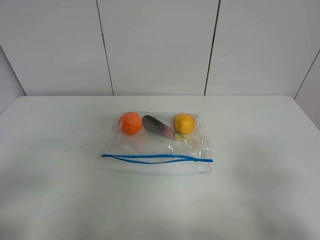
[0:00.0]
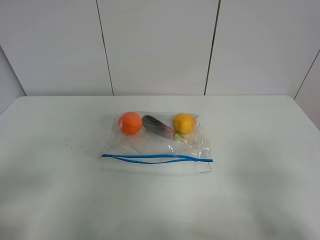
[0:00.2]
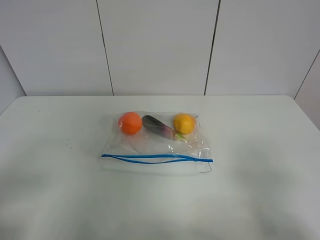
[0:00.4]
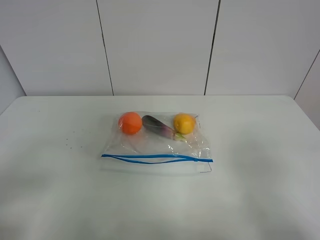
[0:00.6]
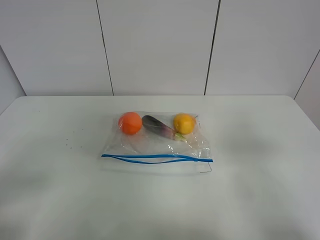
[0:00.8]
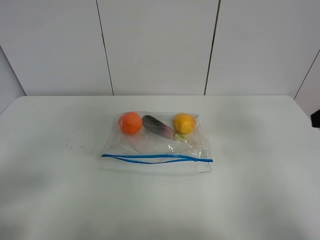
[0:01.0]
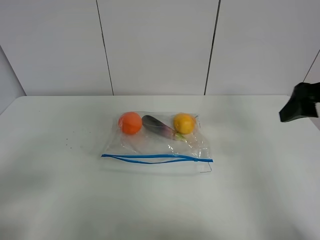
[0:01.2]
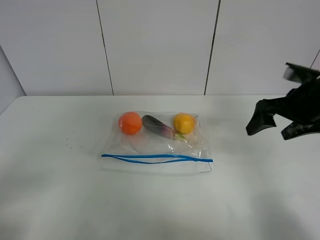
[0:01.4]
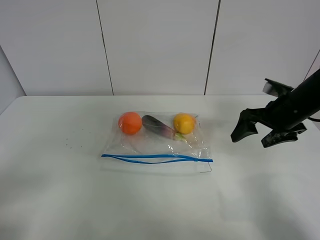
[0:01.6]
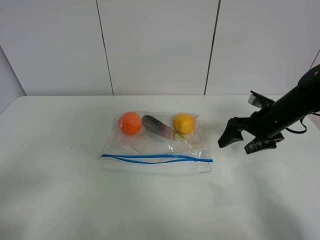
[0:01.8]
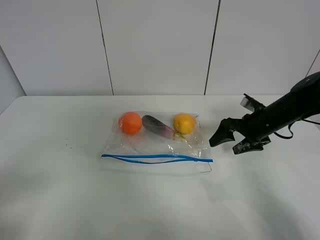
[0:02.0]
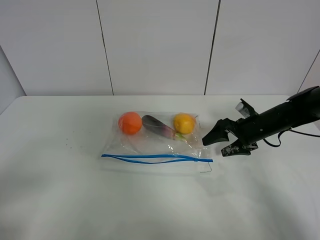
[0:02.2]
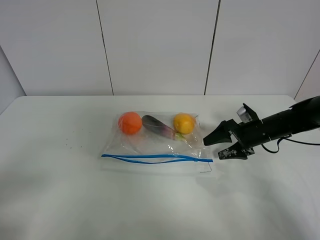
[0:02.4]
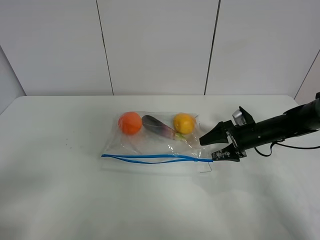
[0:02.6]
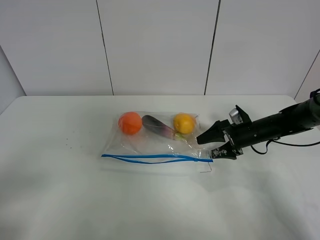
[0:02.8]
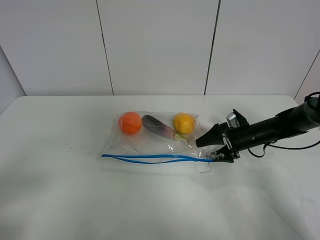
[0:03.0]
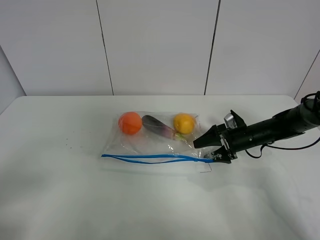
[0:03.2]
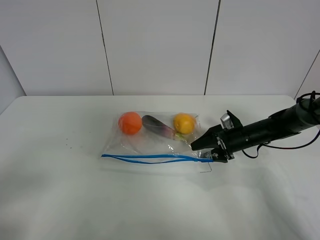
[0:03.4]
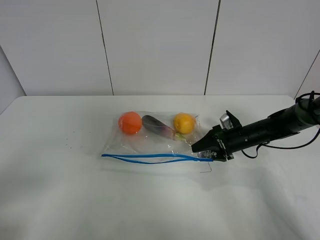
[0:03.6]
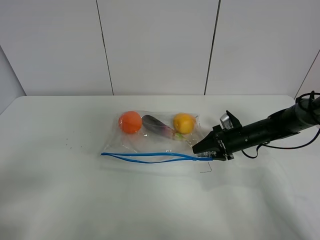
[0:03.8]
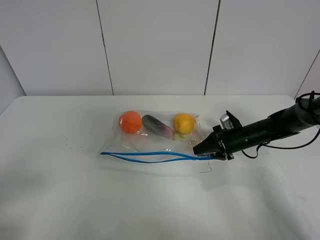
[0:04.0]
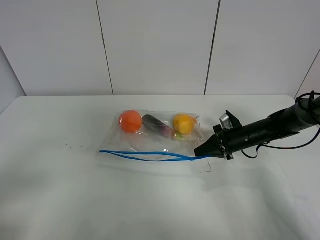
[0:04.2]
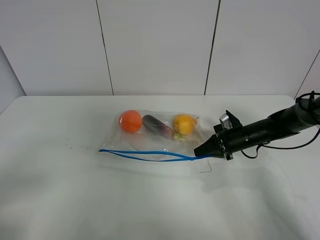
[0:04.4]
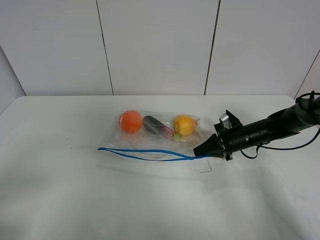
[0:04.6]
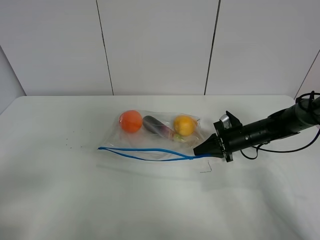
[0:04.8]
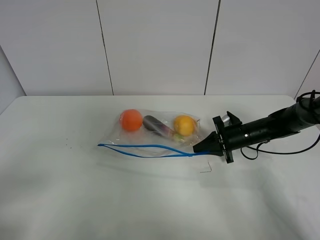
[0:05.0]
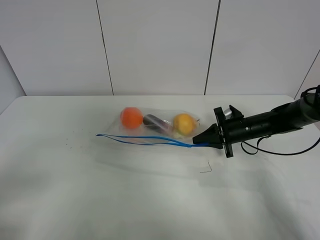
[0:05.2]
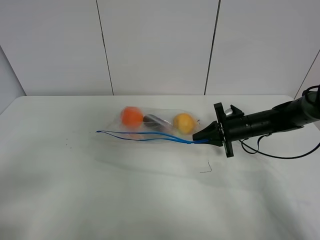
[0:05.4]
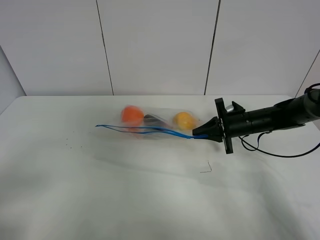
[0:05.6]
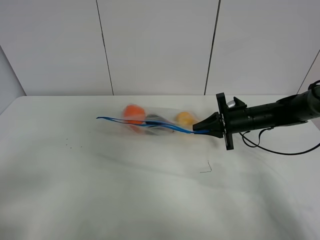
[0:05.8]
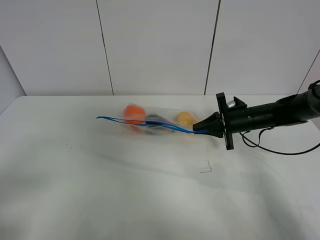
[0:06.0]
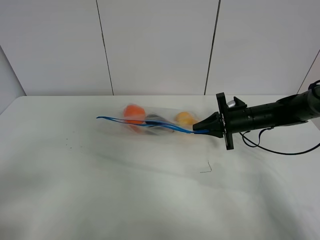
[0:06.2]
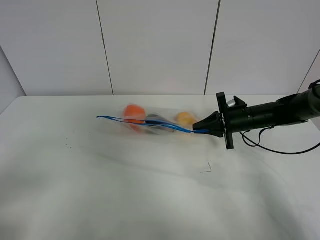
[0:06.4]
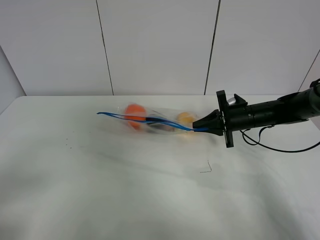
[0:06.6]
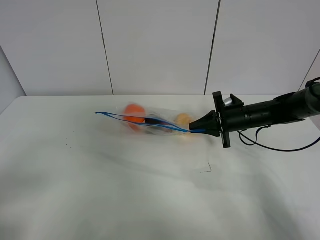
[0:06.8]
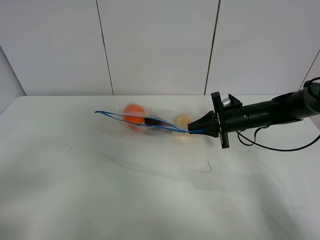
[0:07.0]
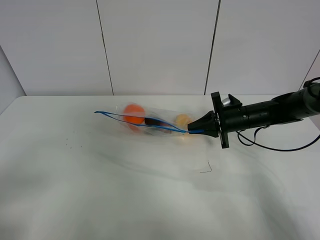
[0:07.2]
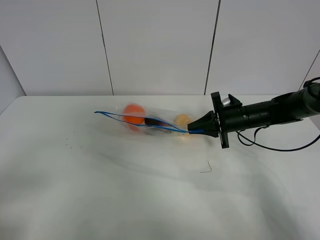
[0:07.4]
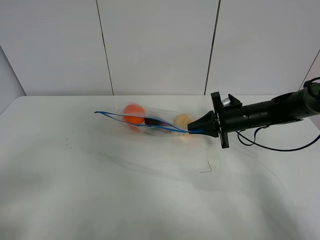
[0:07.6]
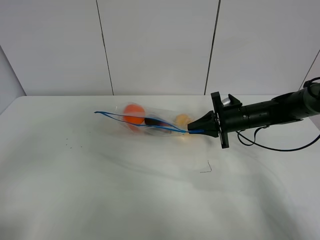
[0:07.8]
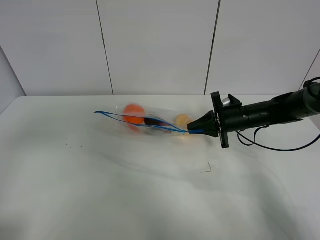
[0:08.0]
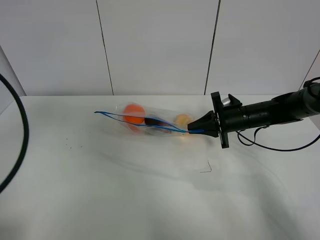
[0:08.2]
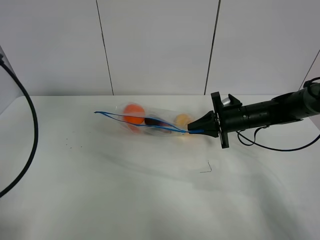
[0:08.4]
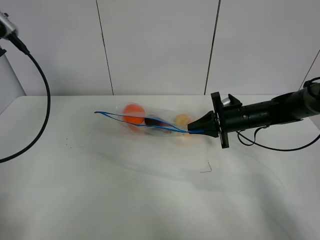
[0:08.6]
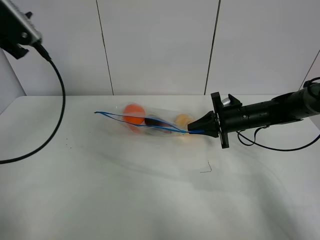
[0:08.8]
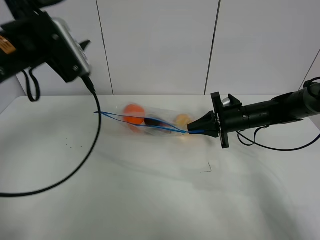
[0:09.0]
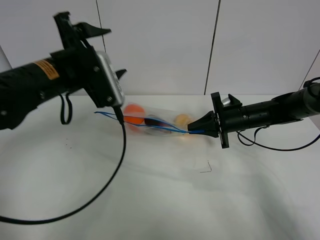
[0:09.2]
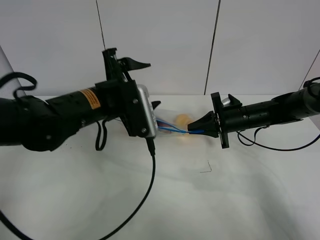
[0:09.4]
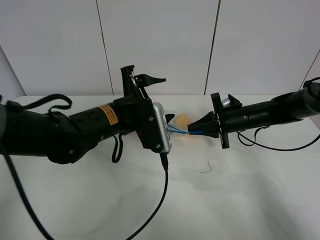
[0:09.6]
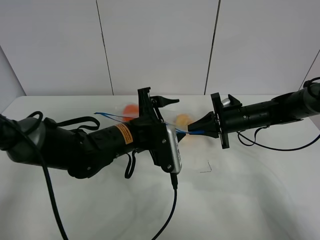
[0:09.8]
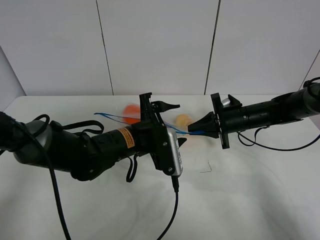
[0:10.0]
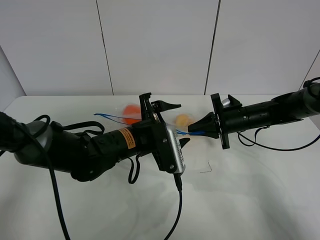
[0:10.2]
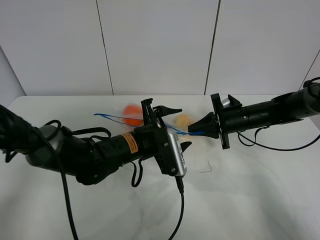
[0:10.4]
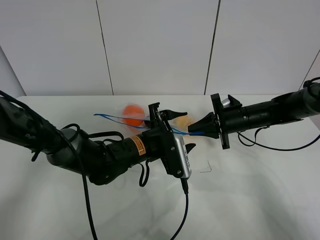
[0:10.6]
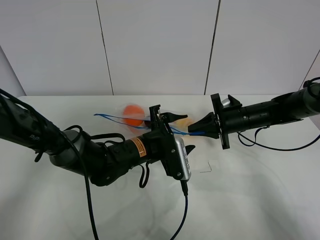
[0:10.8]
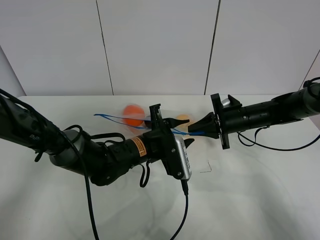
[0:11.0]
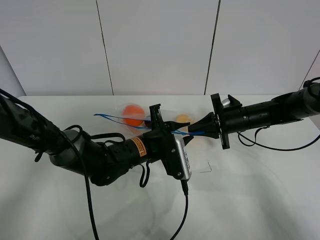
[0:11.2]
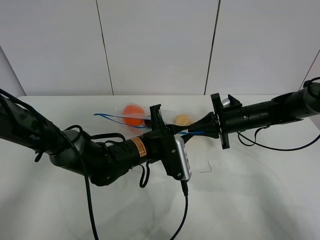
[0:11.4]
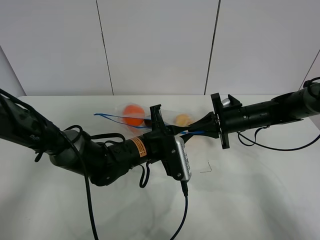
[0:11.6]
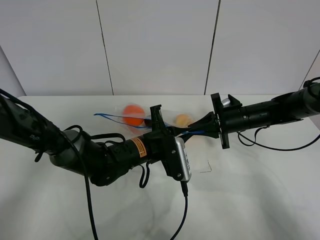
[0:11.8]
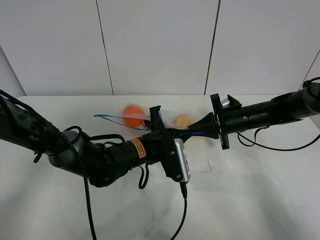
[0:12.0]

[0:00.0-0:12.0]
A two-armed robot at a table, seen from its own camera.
Step, 0:00.0 to 0:04.0: Grasp the fruit bag with right gripper.
Step, 0:04.2 to 0:06.0: Lift the fruit bag with your right gripper.
0:00.0 to 0:01.6: The right gripper goes approximately 30 cm forward.
0:01.6 to 0:03.0: The right gripper shifts approximately 15 cm downward.
0:03.0 to 0:04.4: The right gripper closes.
0:04.4 to 0:06.0: The right gripper shifts roughly 5 cm upward.
0:06.0 to 0:07.6: There are only small adjustments of the grippers.
0:07.6 to 0:09.0: The left gripper shifts some 25 cm forward.
0:09.0 to 0:10.4: The left gripper moves downward and to the right, some 25 cm.
0:10.4 to 0:12.0: The left gripper closes its fingers.

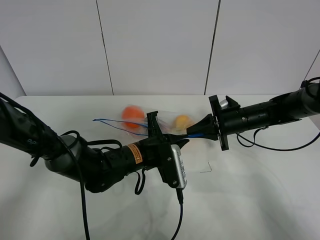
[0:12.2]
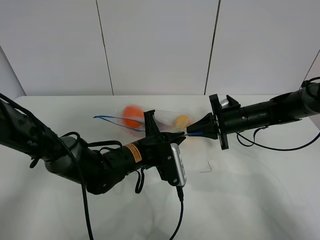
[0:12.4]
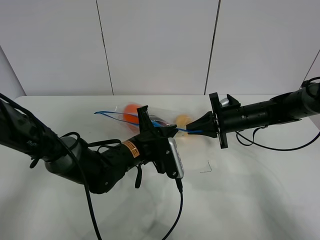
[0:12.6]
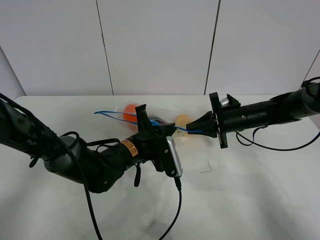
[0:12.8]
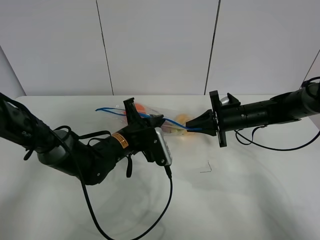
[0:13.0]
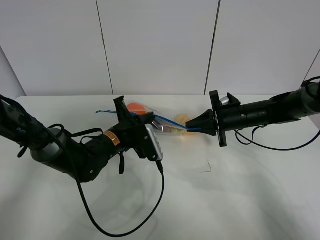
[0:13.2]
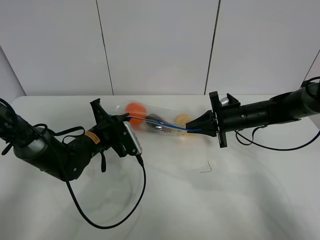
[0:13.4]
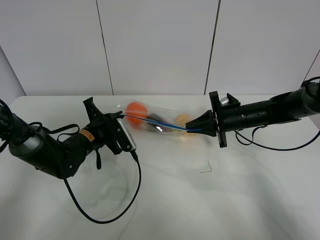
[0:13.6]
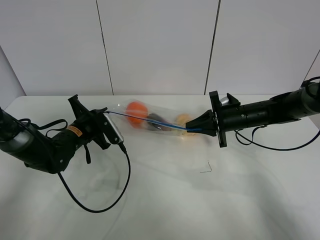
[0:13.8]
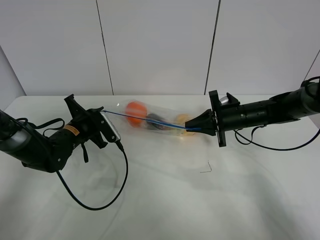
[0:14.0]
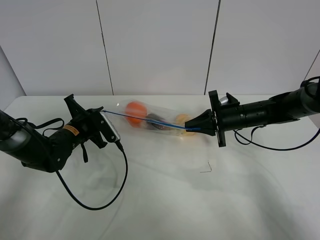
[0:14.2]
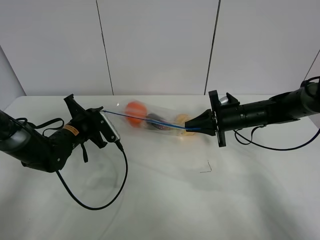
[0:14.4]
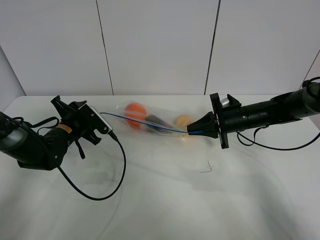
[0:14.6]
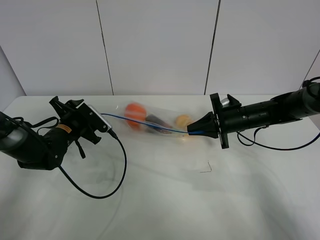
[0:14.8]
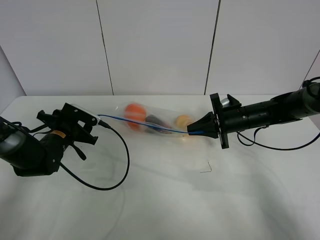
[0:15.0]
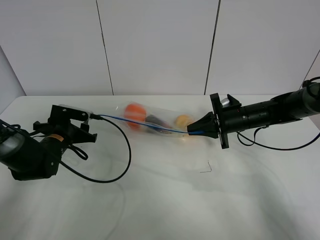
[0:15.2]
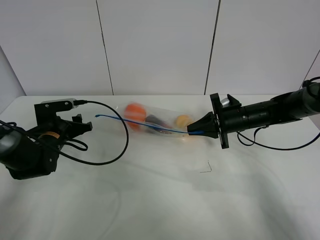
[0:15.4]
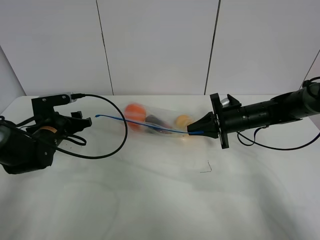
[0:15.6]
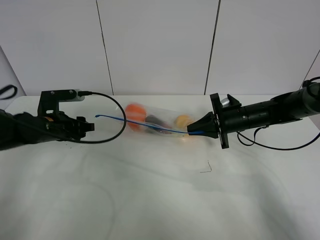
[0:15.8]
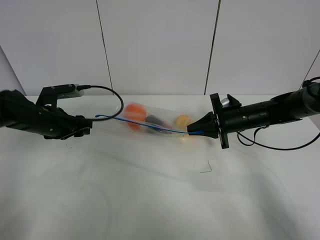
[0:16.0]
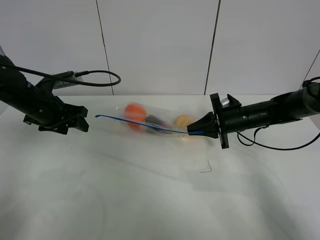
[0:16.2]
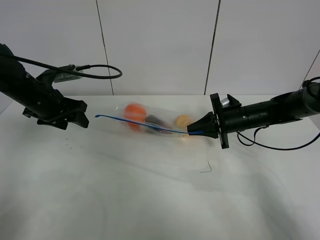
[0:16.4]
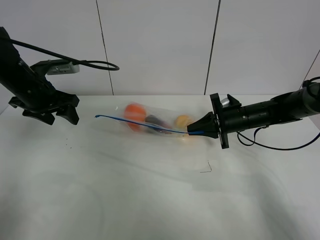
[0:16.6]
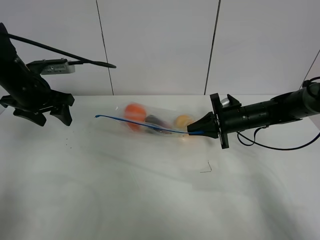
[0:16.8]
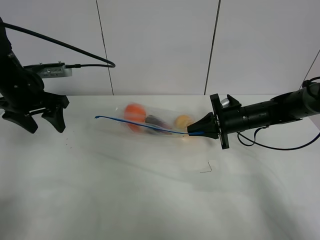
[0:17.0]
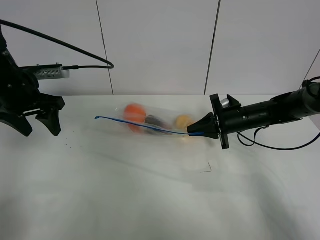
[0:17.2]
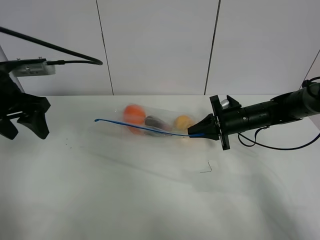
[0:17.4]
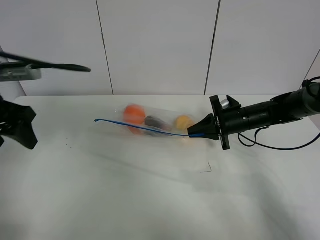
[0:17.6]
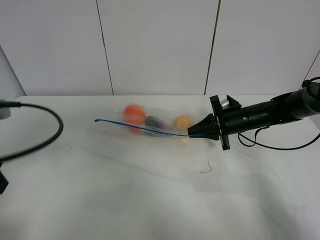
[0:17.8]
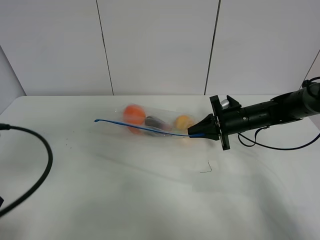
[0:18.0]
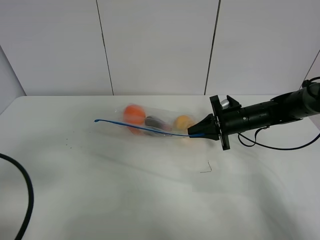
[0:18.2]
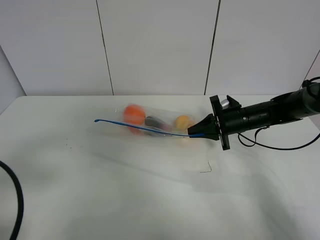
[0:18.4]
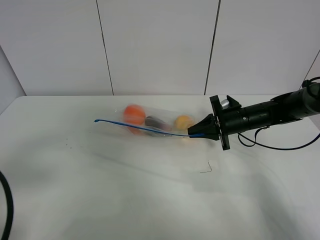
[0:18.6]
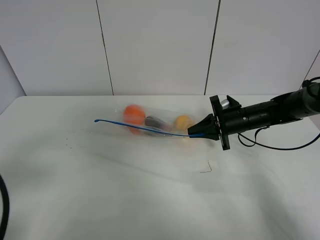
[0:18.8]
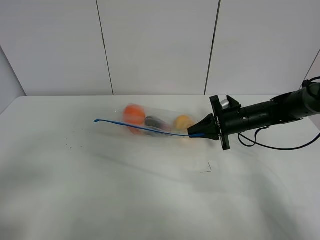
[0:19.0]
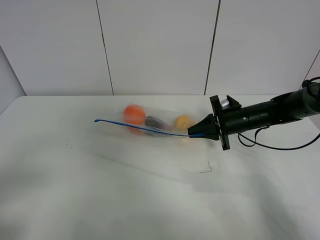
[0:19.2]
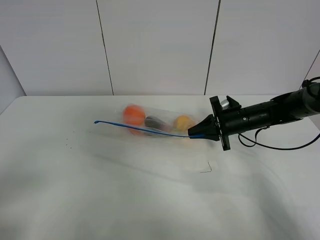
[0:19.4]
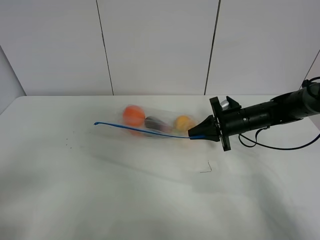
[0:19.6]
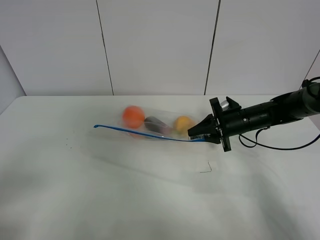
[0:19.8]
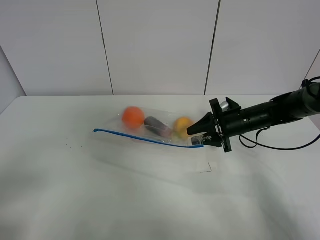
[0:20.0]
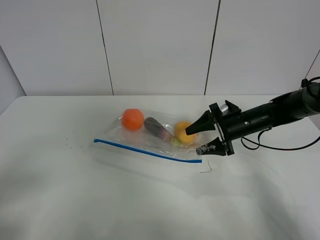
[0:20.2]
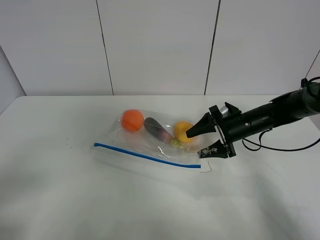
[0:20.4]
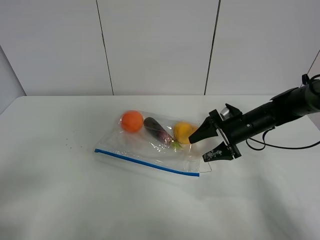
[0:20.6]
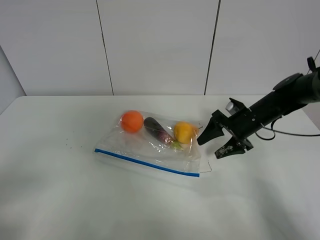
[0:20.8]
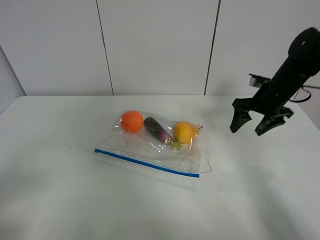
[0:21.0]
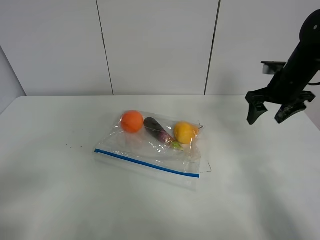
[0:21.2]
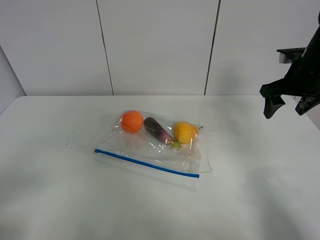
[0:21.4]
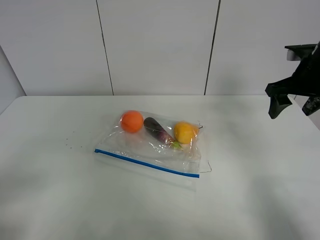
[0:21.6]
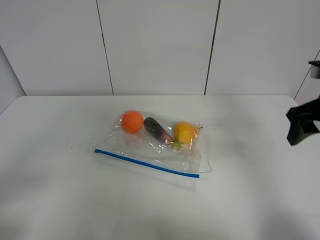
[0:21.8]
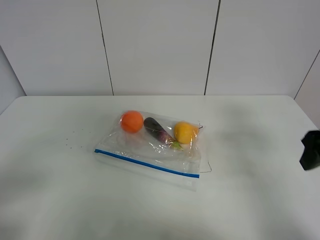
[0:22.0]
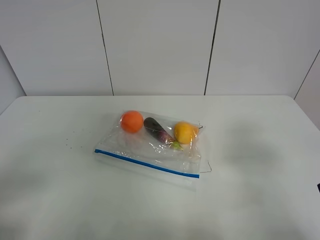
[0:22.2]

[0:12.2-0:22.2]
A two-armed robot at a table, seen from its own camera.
Step, 0:12.2 to 0:14.8: Pull the fruit bag with left gripper.
0:12.2 to 0:13.6: The left gripper shifts about 15 cm to the left and forward.
0:13.6 to 0:15.0: The left gripper travels to the left by about 5 cm, and opens up.
0:15.0 to 0:16.4: The left gripper shifts about 15 cm upward.
0:16.4 to 0:18.0: The left gripper is displaced backward by roughly 25 cm.
0:18.0 to 0:19.4: The left gripper shifts some 10 cm backward.
0:19.4 to 0:20.8: The right gripper opens up.
0:20.8 to 0:22.2: The right gripper shifts roughly 30 cm backward and upward.
